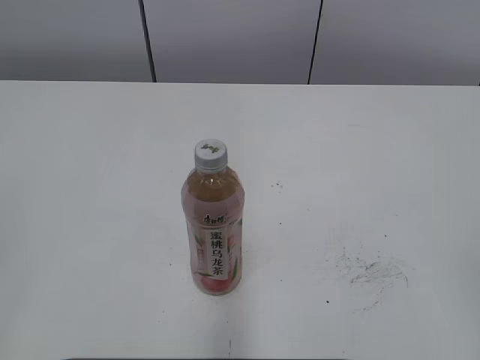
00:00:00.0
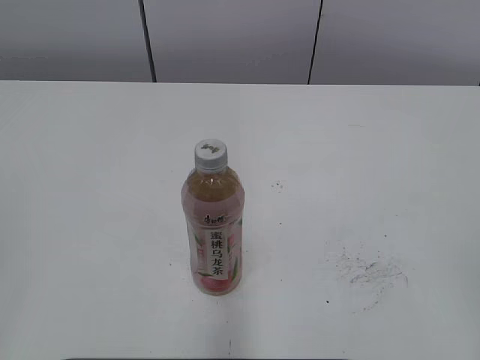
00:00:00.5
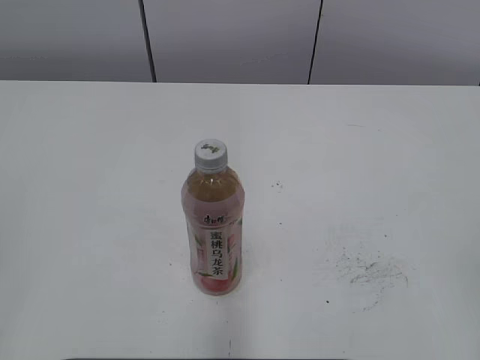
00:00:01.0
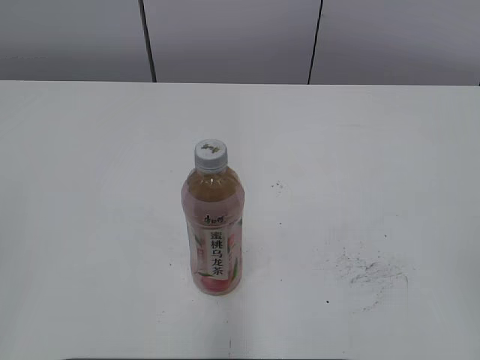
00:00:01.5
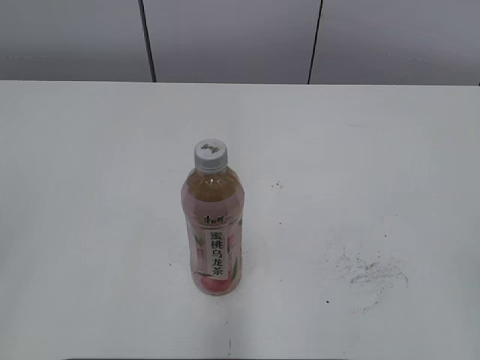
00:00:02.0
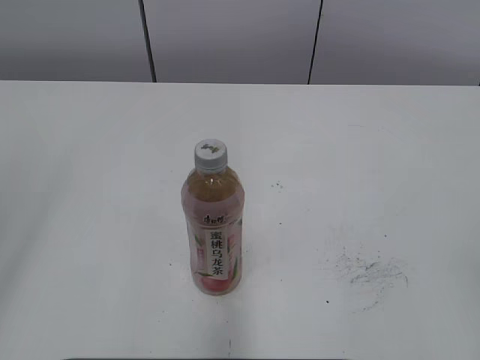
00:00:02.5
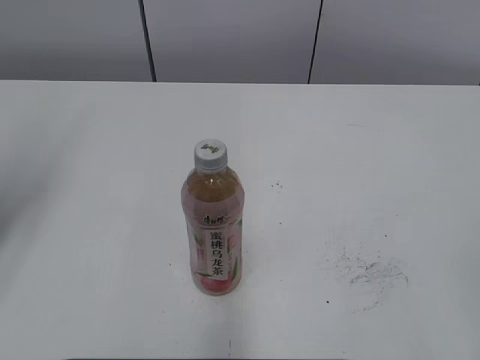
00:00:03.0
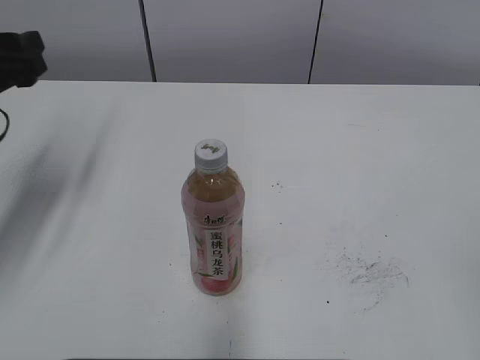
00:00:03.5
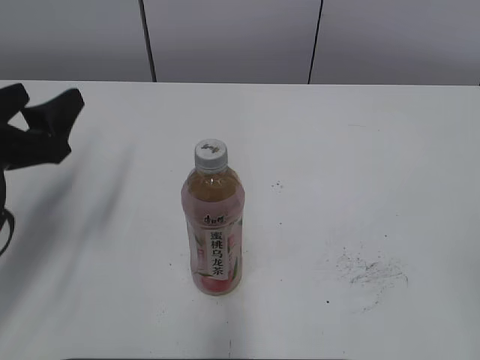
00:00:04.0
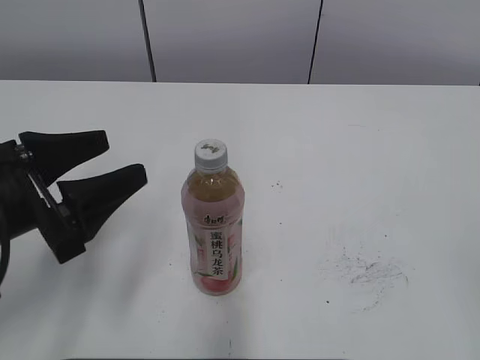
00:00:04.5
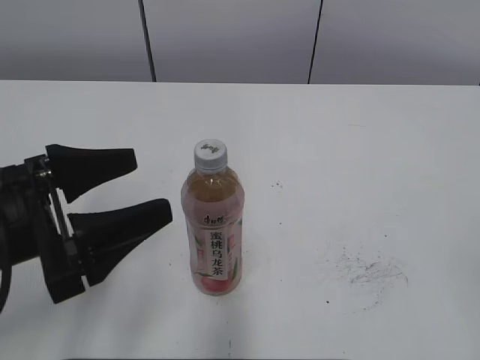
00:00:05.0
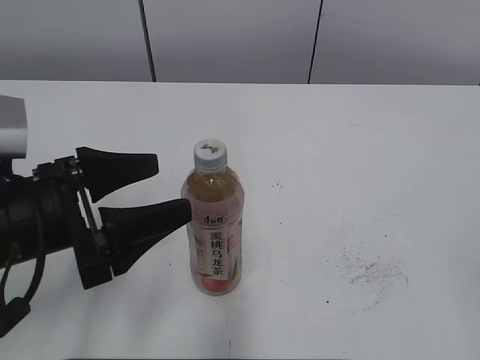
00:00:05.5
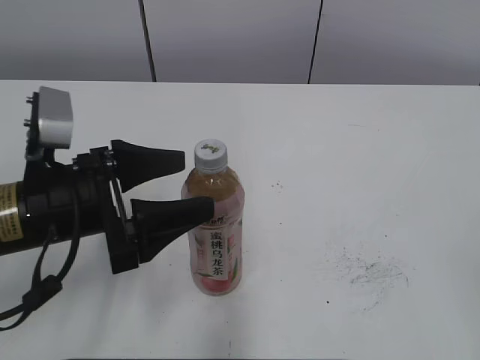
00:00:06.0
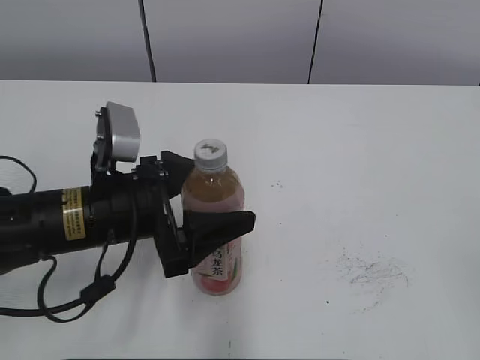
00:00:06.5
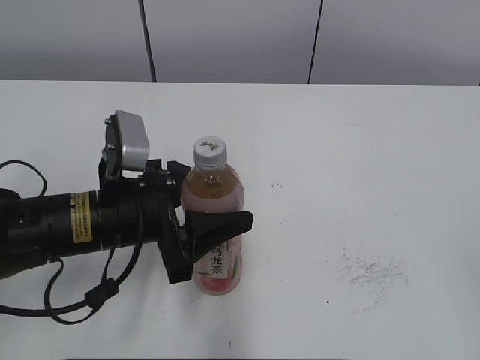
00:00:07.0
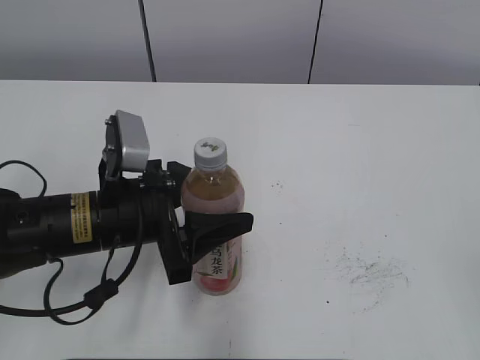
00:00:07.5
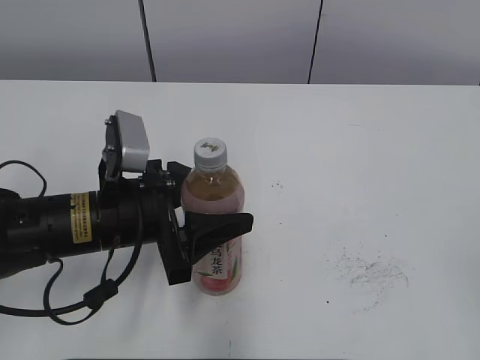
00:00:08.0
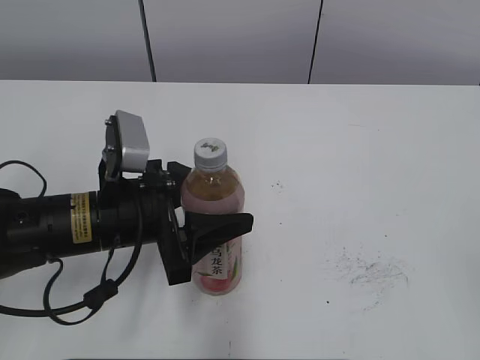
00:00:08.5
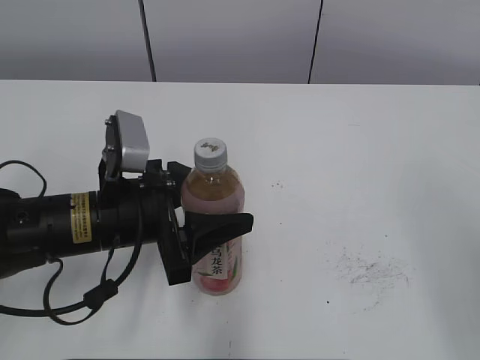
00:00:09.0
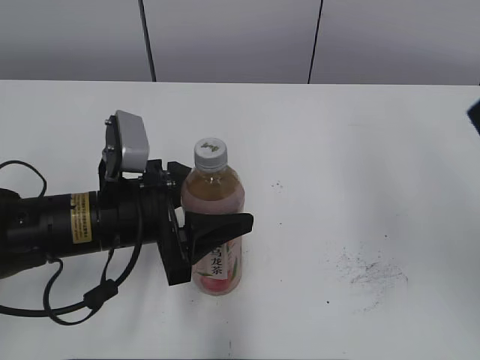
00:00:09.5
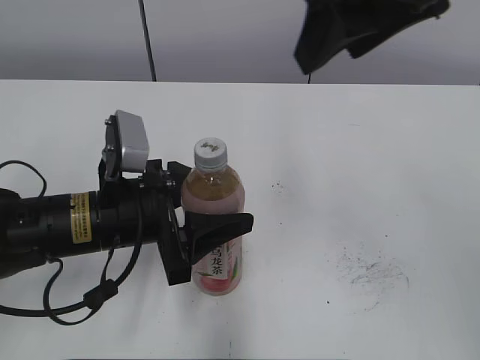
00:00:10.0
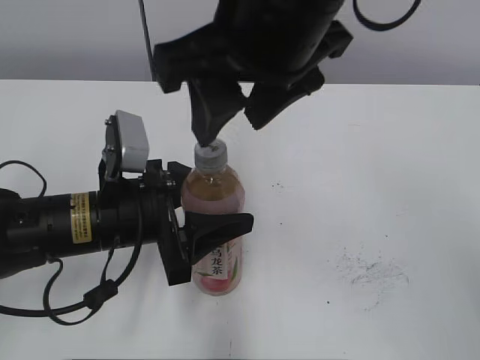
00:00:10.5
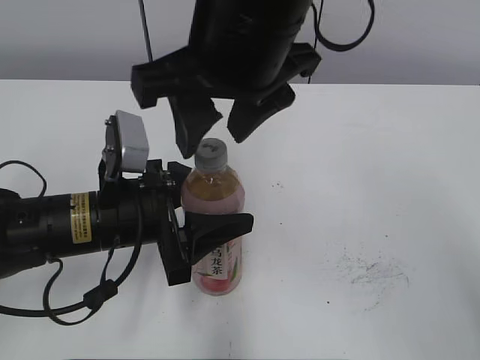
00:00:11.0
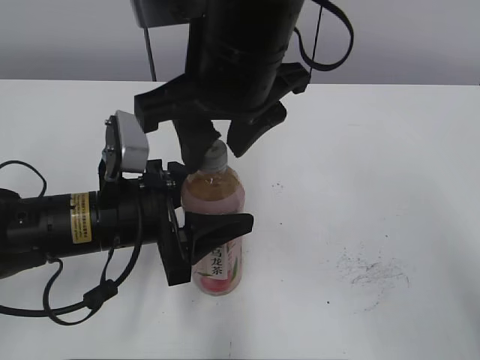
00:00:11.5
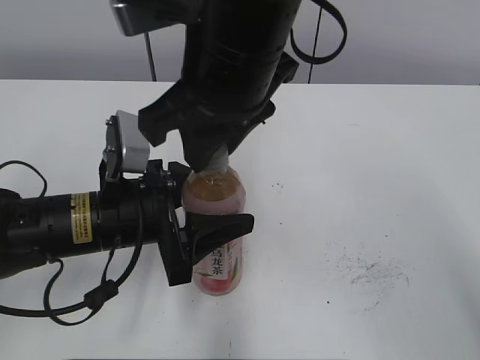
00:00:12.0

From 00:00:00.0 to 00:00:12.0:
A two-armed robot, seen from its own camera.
Step, from 00:00:00.0 to 00:00:06.5: Grab the Peach Oolong Tea with the left hand.
From 00:00:02.0 to 00:00:04.0: The left gripper shifts some 30 cm forward and downward, and opens up.
From 00:00:04.0 to 00:00:06.0: The left gripper travels to the right by about 10 cm.
From 00:00:06.0 to 00:00:08.0: The left gripper shifts by approximately 5 cm, and closes.
From 00:00:08.0 to 00:00:10.0: The right gripper moves forward, to the left and upward, some 35 cm, and closes its fingers.
From 00:00:10.0 to 00:00:12.0: The right gripper travels to the left and downward by about 15 cm, and closes.

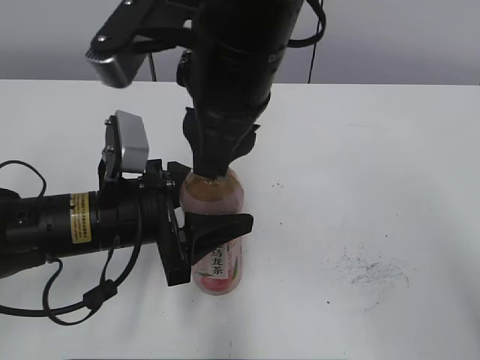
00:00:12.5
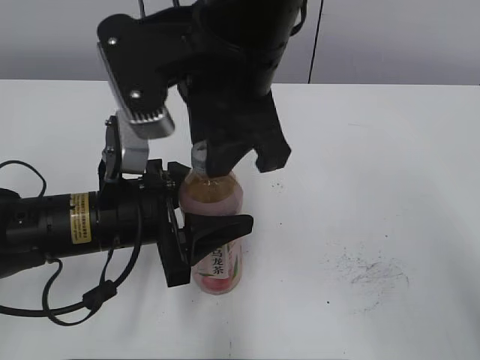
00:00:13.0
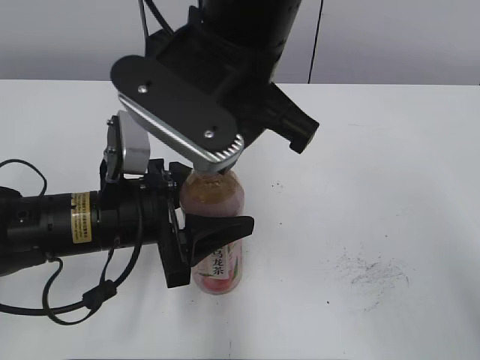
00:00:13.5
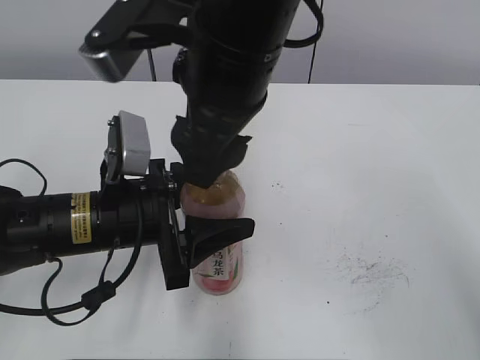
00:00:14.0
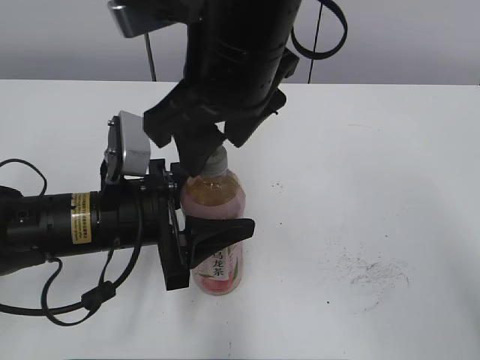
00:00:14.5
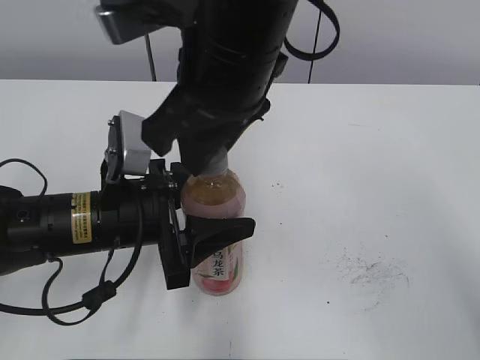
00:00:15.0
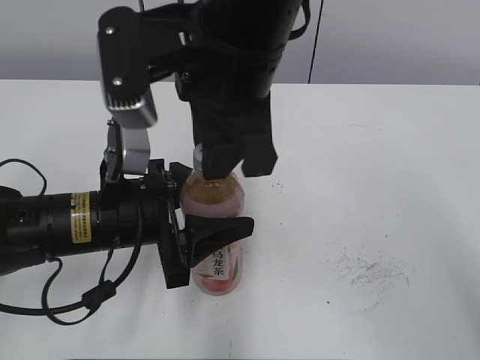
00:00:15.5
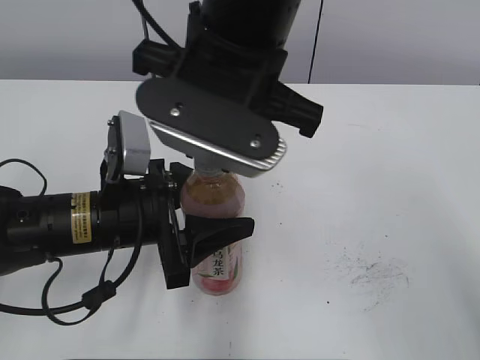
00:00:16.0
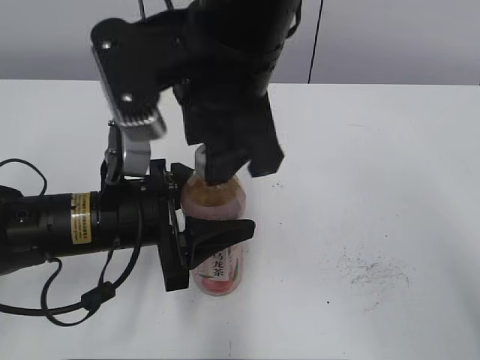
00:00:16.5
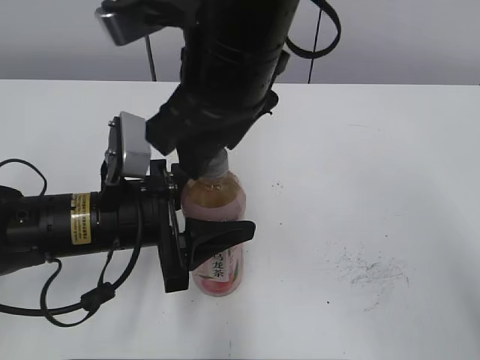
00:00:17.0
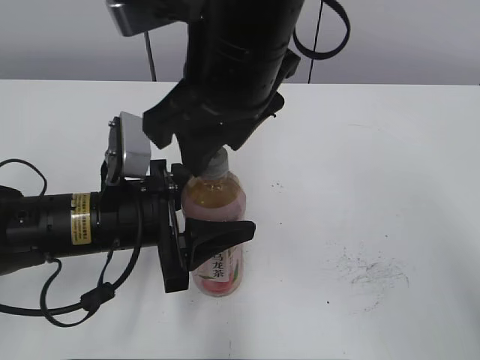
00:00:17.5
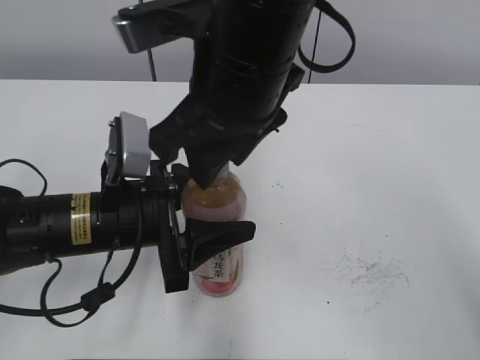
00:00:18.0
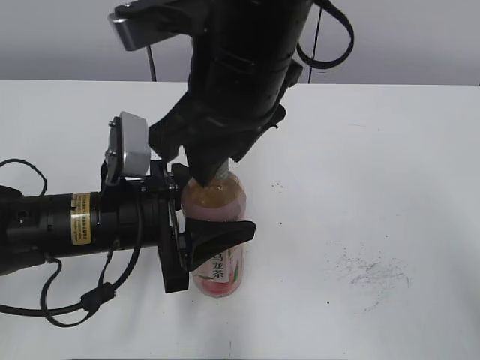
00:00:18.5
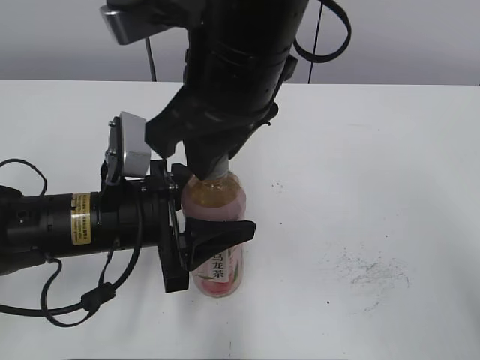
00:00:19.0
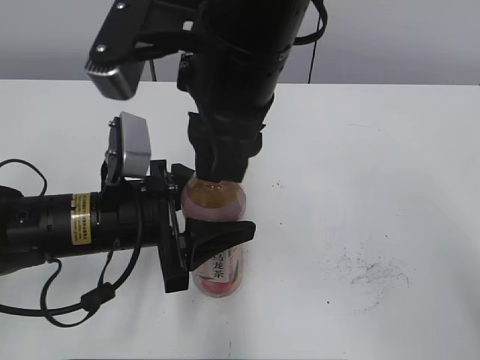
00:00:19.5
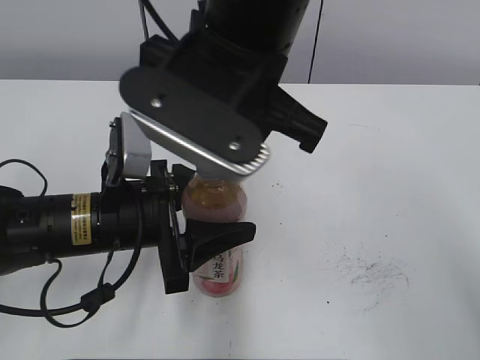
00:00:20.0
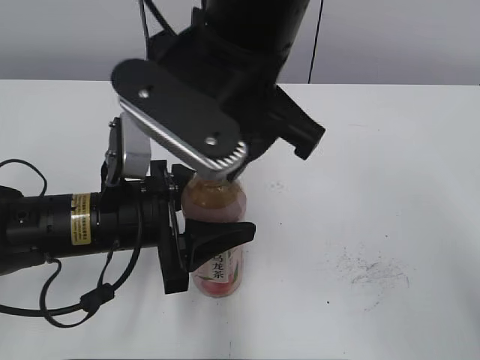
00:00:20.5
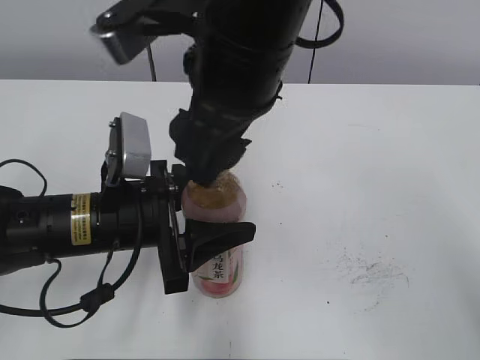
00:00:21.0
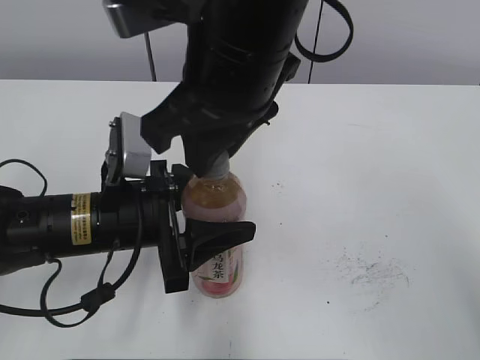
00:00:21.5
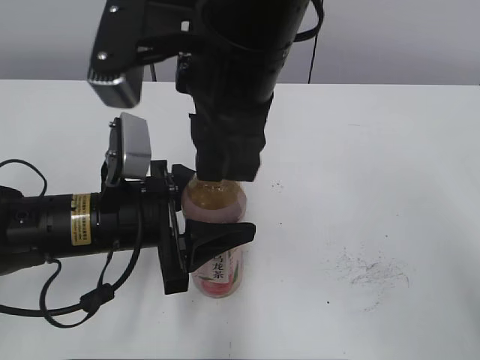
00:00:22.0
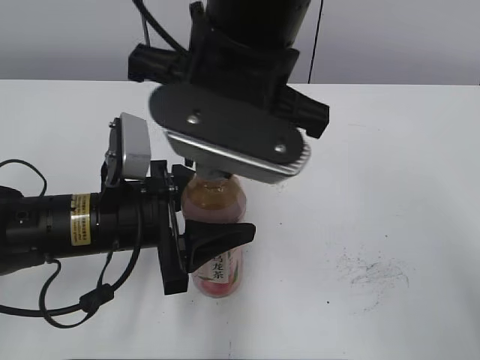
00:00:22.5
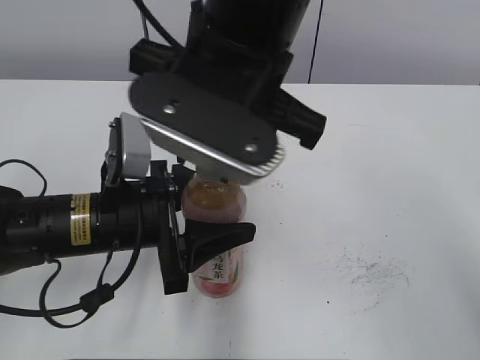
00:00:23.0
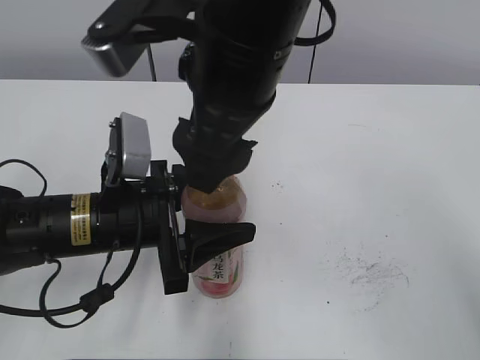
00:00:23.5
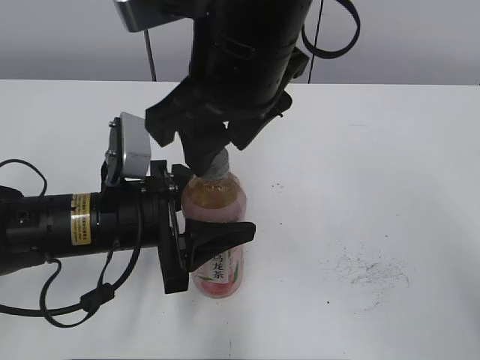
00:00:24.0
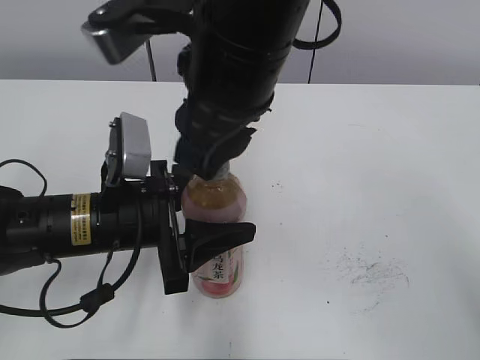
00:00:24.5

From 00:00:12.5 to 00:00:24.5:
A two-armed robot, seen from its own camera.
From 00:00:12.5 to 00:00:14.5: The right gripper opens.
From 00:00:14.5 to 00:00:16.5: The right gripper closes, then opens again.
From 00:00:20.5 to 00:00:22.5: The right gripper closes up.
From 00:00:22.5 to 00:00:24.5: The right gripper opens and closes again.

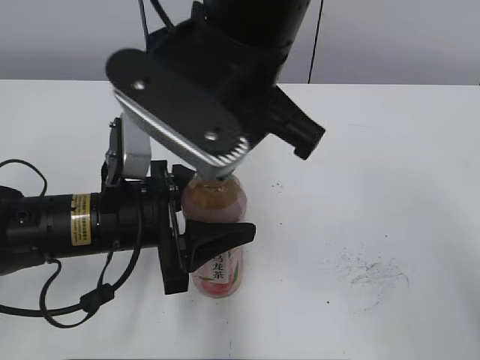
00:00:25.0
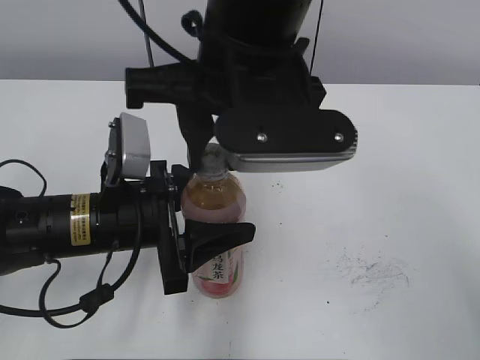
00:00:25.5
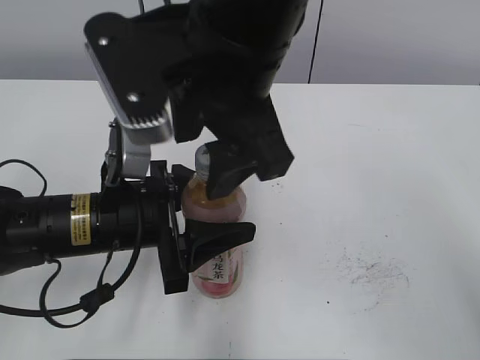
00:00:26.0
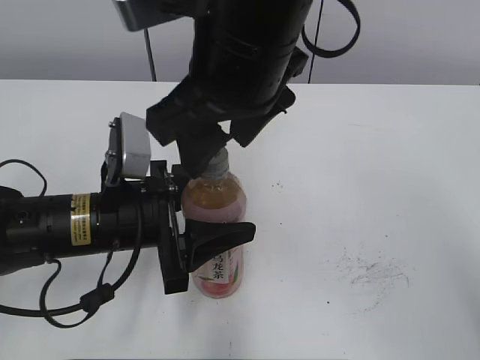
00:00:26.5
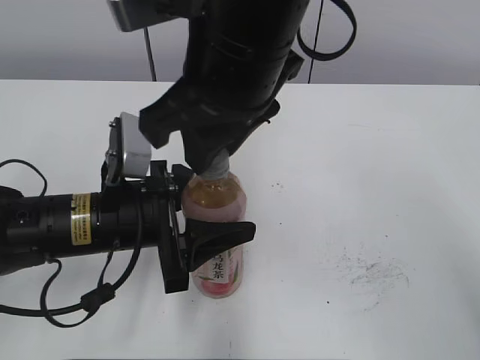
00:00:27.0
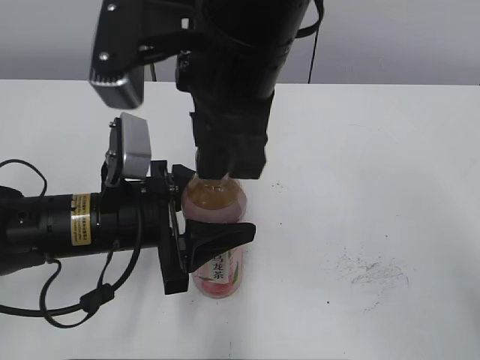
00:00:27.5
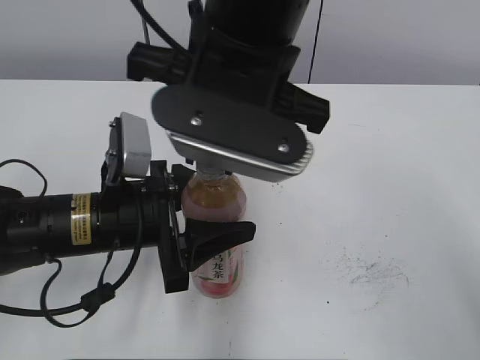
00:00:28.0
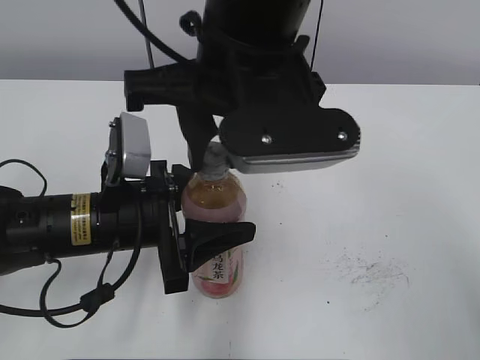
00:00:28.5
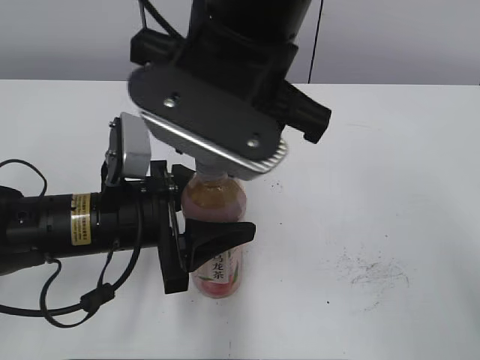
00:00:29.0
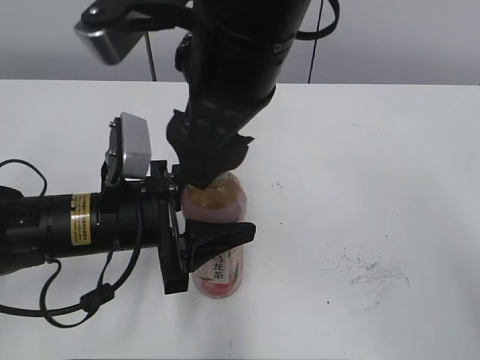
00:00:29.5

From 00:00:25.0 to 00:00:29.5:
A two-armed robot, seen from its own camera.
From 00:00:25.0 to 00:00:27.0: The right gripper opens, then closes once more.
From 00:00:27.0 to 00:00:29.5: The right gripper opens up.
